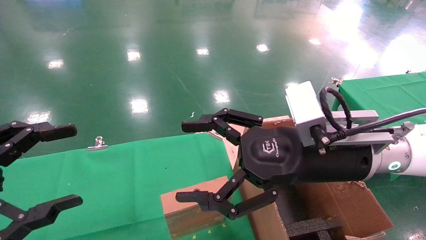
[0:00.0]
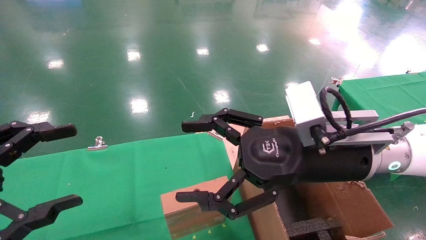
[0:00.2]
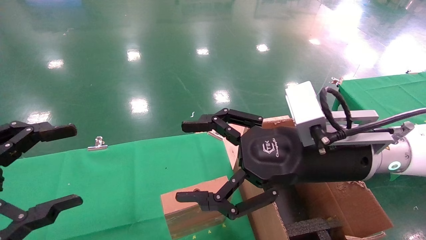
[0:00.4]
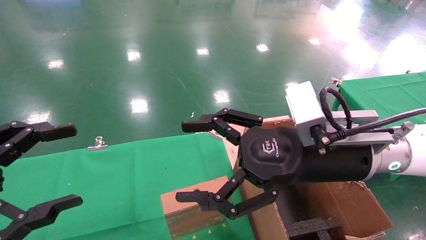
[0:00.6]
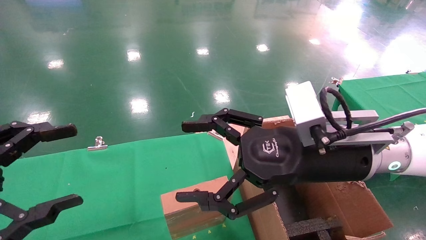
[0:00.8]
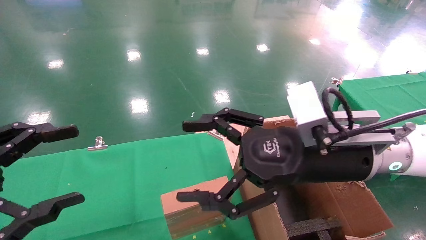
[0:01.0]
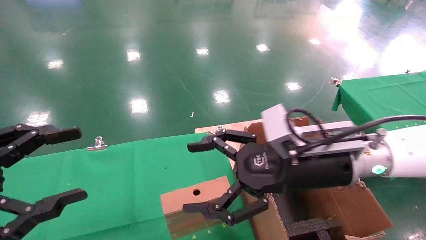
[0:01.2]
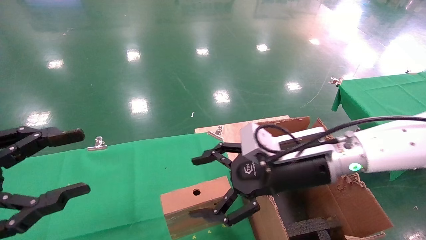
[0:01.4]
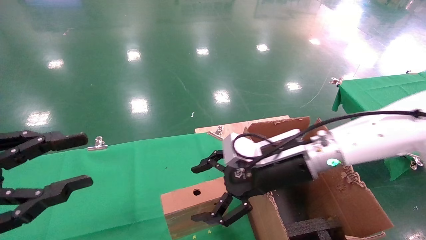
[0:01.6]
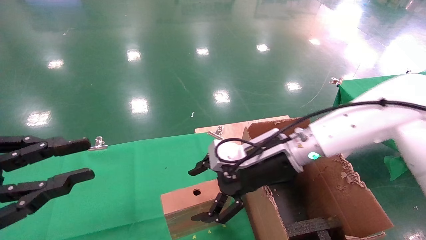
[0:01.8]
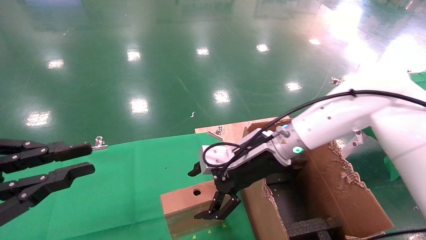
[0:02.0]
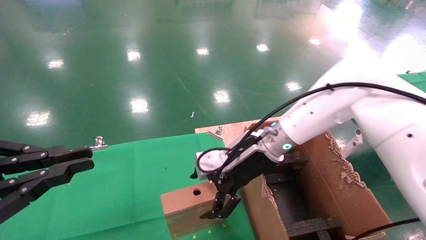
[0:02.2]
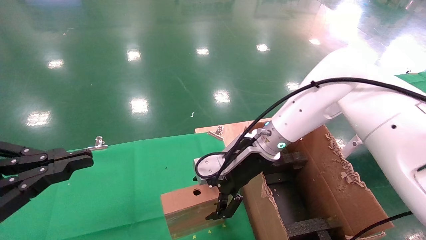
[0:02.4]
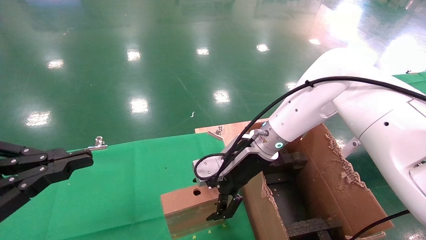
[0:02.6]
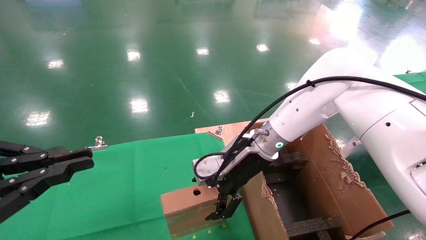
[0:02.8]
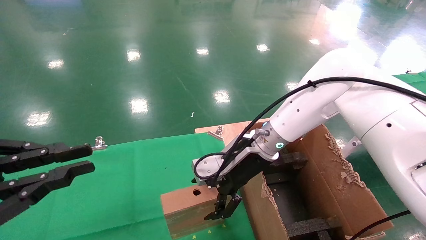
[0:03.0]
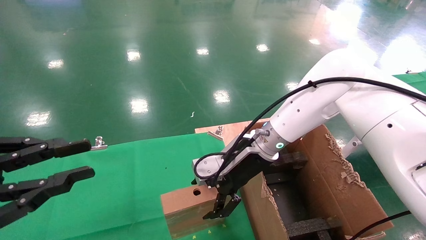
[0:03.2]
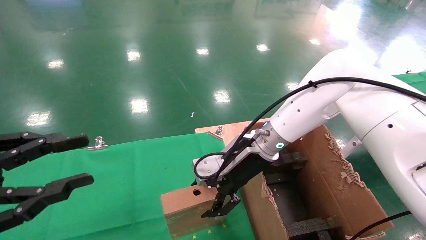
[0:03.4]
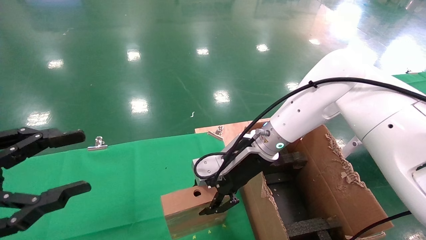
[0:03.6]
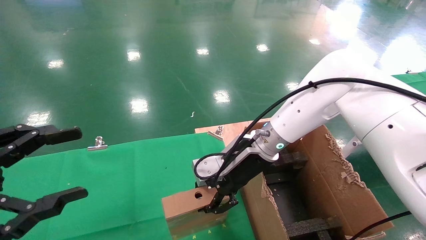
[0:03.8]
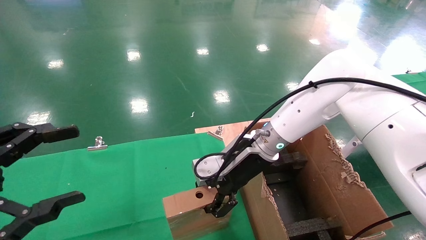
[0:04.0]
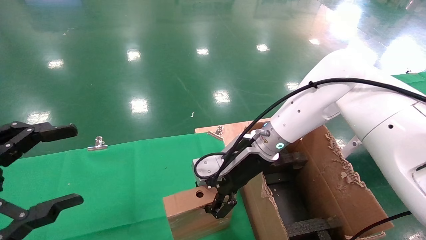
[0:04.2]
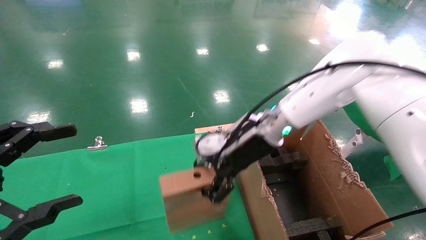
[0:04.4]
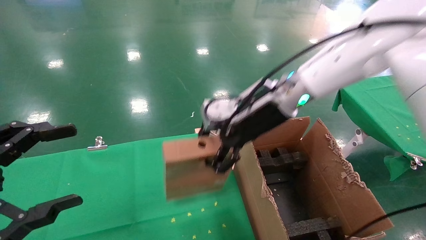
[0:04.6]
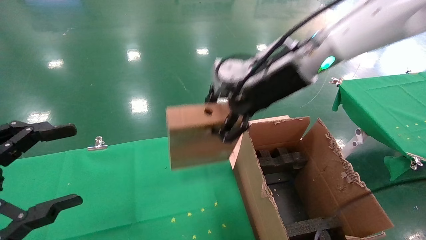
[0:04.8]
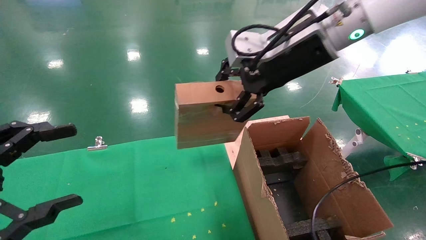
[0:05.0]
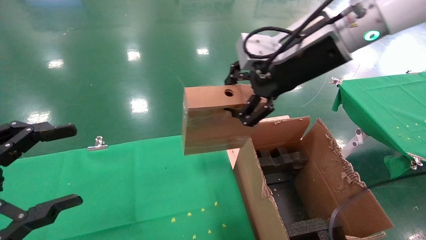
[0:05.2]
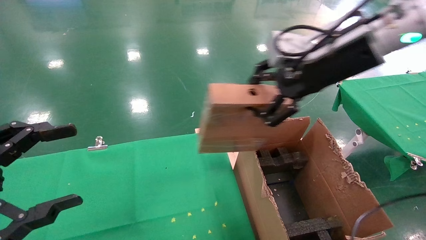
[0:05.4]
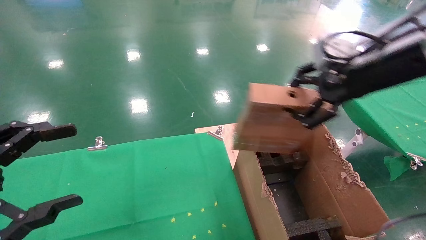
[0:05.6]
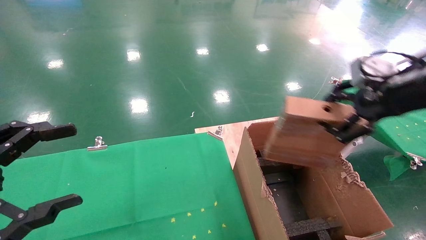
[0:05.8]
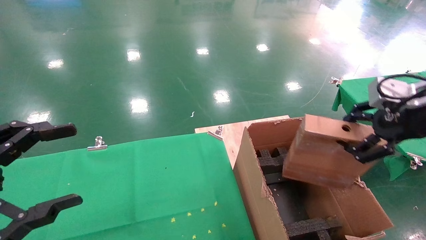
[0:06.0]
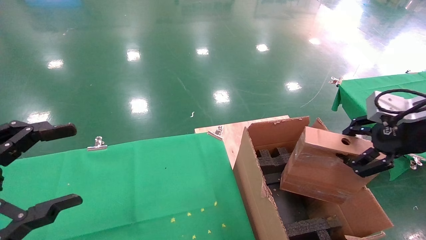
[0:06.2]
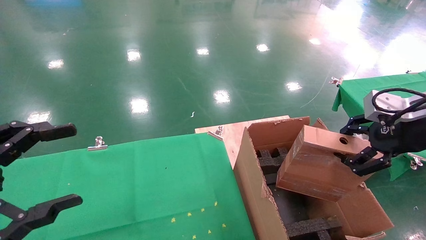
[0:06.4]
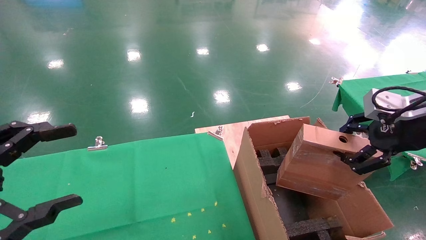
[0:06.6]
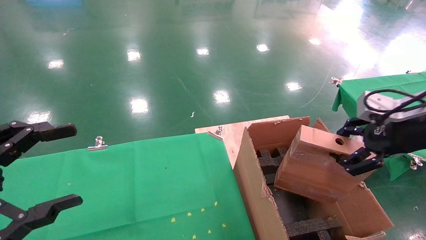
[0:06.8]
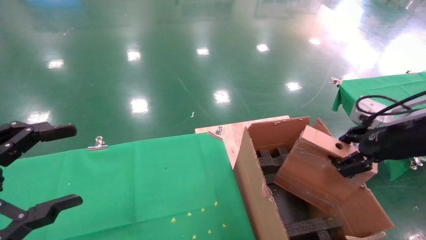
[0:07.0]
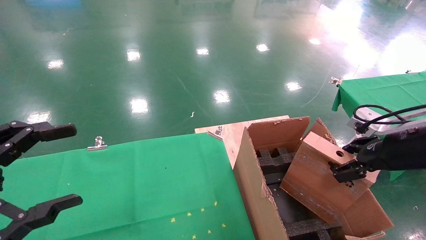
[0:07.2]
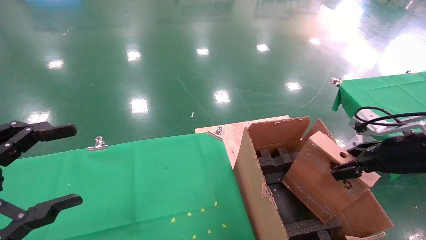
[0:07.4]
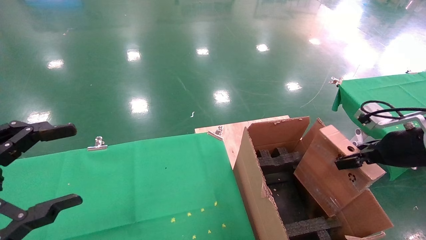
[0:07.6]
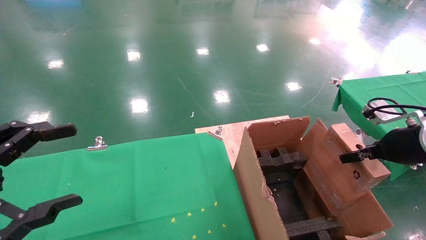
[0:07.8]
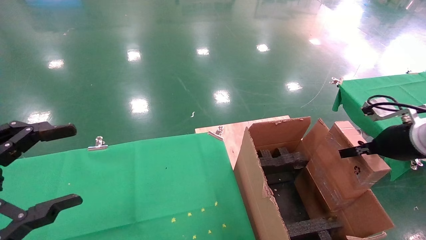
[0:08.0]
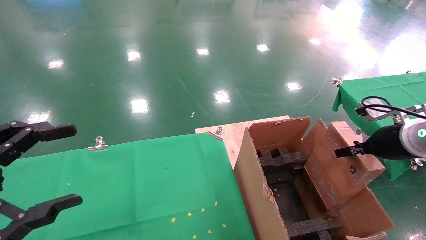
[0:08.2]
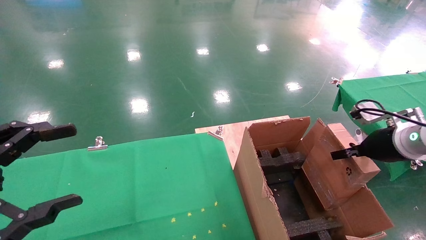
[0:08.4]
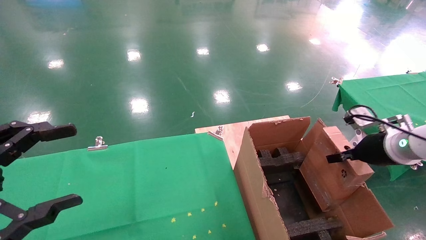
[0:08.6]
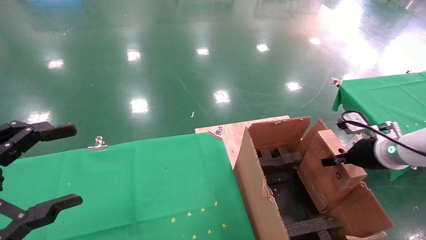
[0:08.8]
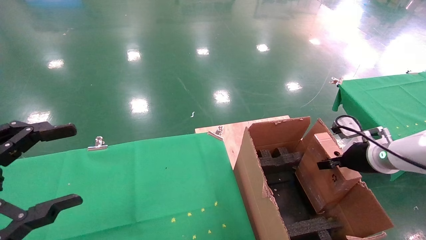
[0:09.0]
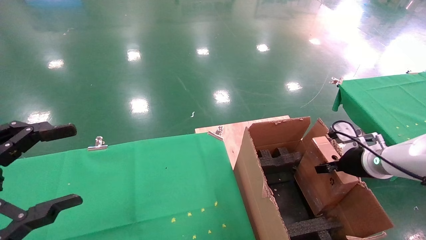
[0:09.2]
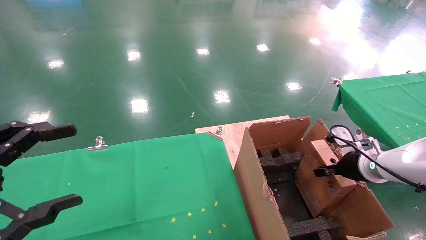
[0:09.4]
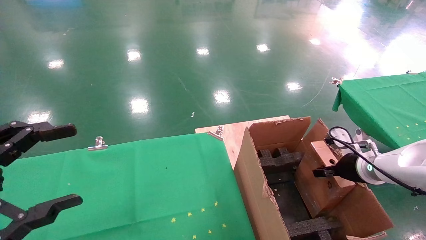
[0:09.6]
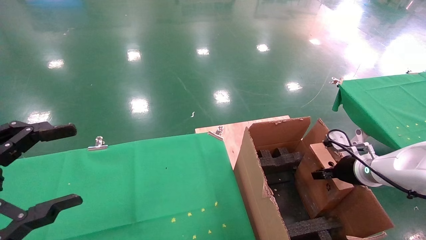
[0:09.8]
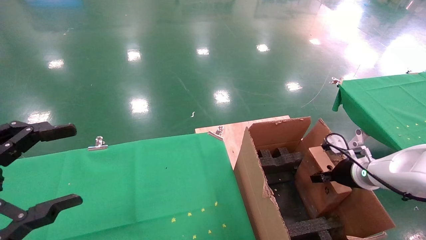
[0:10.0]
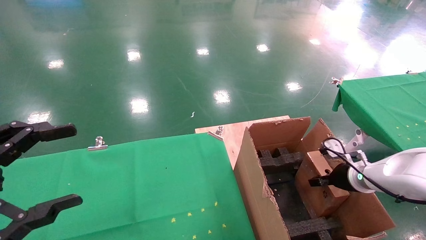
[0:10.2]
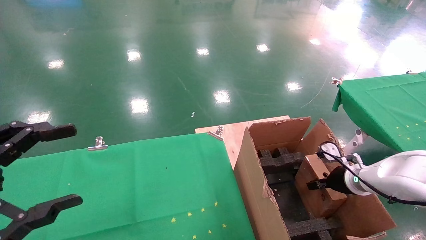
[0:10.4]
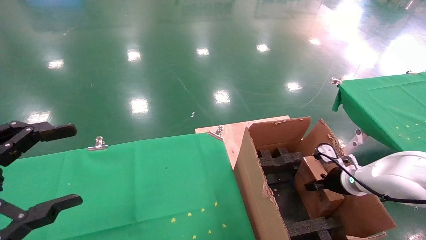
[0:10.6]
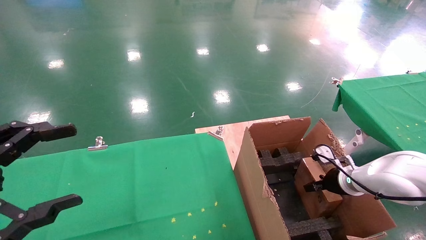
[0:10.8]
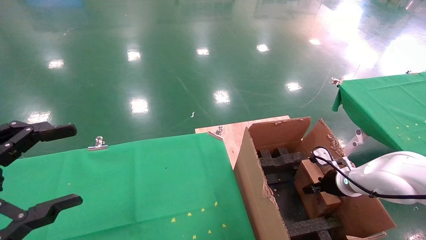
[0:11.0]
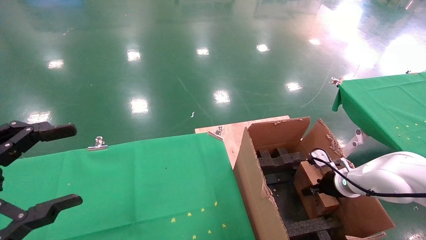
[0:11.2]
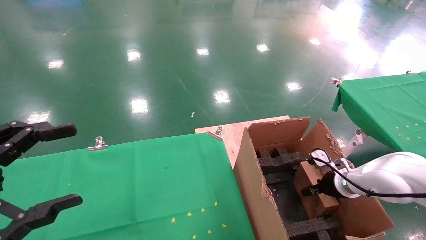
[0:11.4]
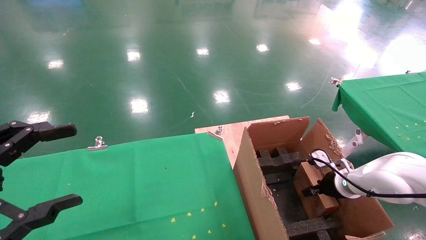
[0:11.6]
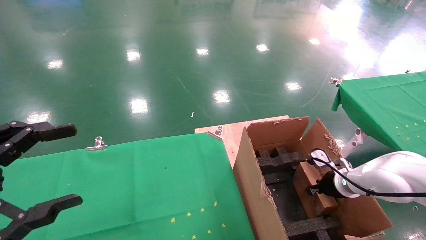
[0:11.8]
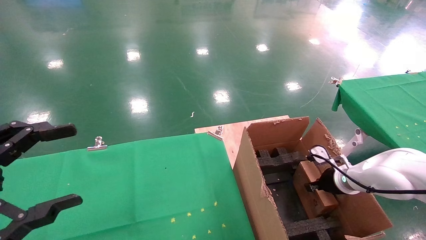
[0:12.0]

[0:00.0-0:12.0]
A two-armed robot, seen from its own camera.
Task of the whole recording: using a robotic arm to pick up a cardboard box and palace it the carton.
Step, 0:01.2 to 0:03.8: Pick up the mouse and the power cord paper box.
0:00.0 to 0:01.6: The right gripper travels forward and downward by some 10 cm. The left gripper closes its fingers.
0:01.6 to 0:03.0: The right gripper heads forward, covering roughly 5 cm, while the left gripper closes its fingers.
0:03.0 to 0:04.4: The left gripper opens up. Meanwhile the right gripper is displaced upward by some 5 cm, and closes its fingers.
0:04.4 to 0:06.0: The right gripper moves to the right and backward, roughly 30 cm.
0:06.0 to 0:07.6: The right gripper heads downward, covering approximately 10 cm.
0:07.6 to 0:09.0: The right gripper travels forward and downward by about 10 cm.
0:09.0 to 0:10.4: The right gripper shifts about 10 cm downward.
0:10.4 to 0:12.0: The grippers move only a little.

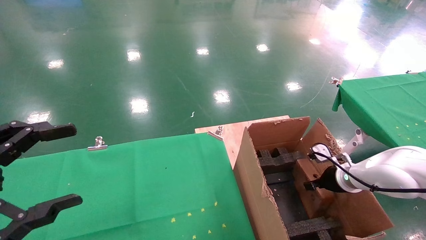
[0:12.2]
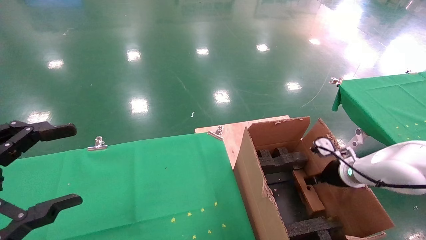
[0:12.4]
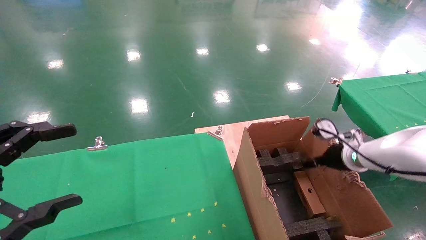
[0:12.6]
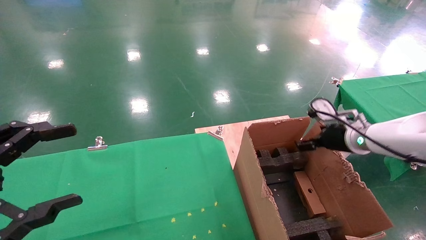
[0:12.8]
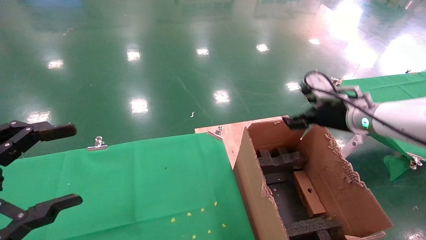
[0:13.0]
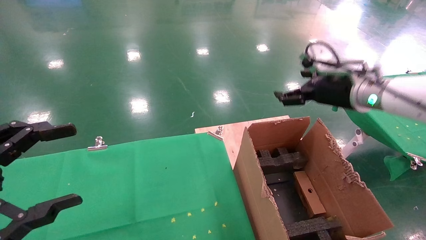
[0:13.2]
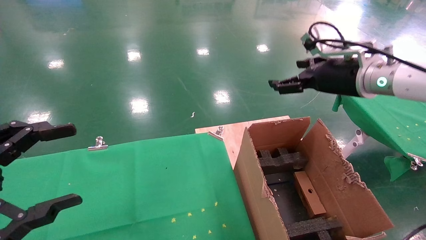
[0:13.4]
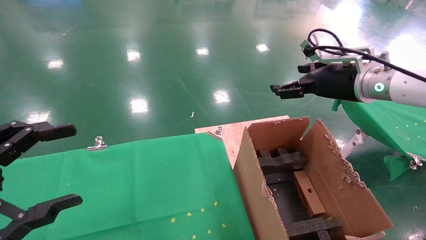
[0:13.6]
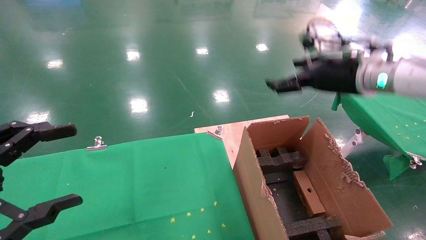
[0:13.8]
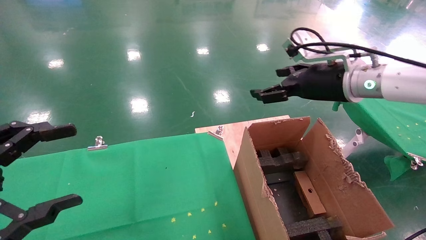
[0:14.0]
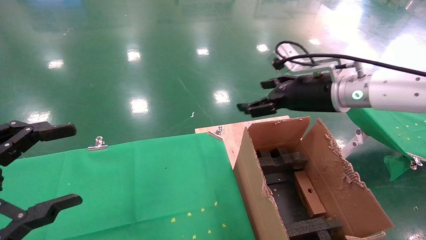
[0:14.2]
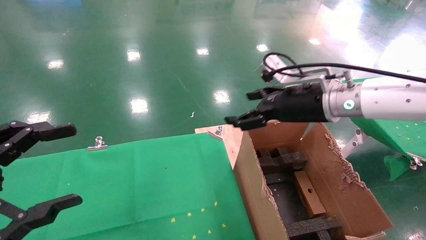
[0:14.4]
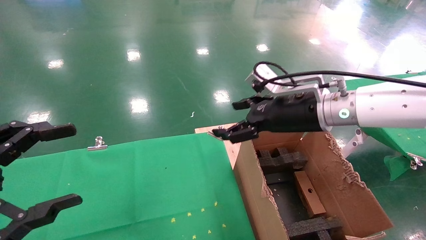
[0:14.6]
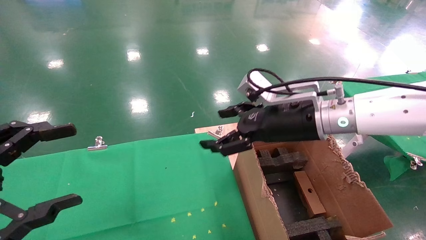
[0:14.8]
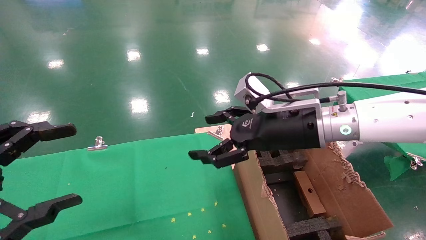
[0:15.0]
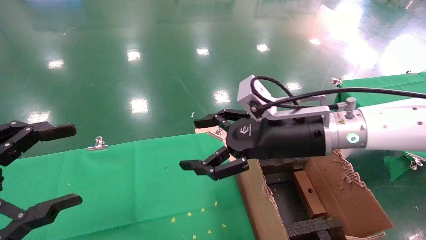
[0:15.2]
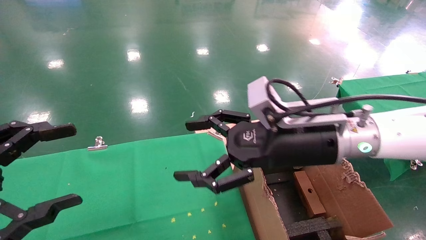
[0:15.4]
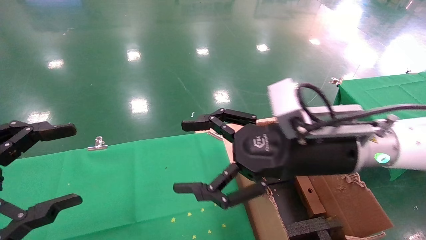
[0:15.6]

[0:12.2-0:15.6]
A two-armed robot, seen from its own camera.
Task of the whole recording: using a robotic arm to pick up a cardboard box and palace it the carton.
0:12.2 to 0:13.8: The right gripper shifts about 25 cm upward, and opens.
0:13.8 to 0:15.6: The right gripper goes some 15 cm to the left, backward and downward.
